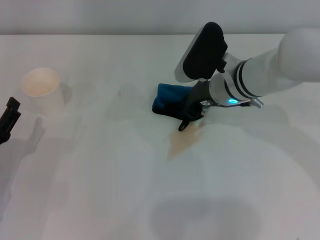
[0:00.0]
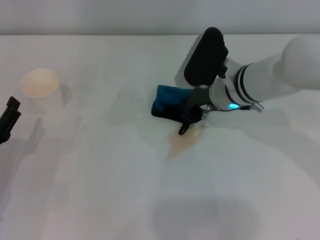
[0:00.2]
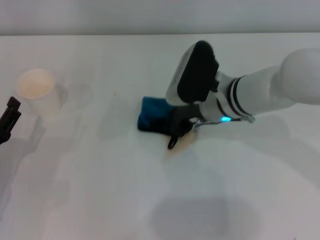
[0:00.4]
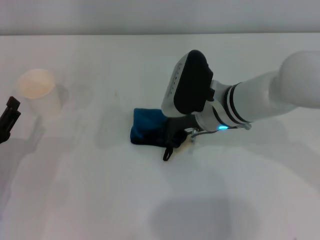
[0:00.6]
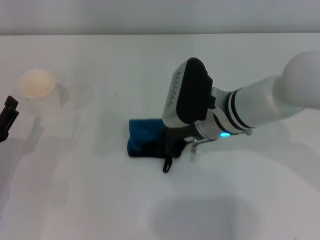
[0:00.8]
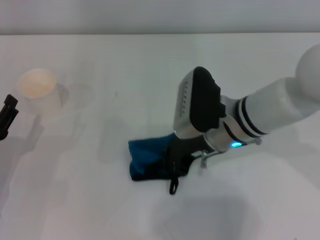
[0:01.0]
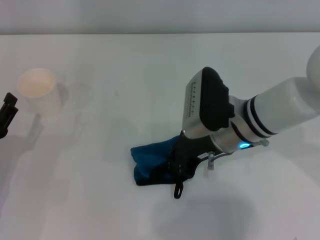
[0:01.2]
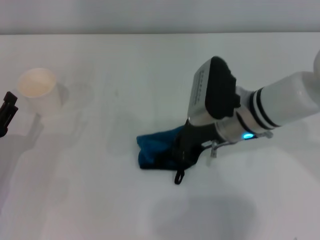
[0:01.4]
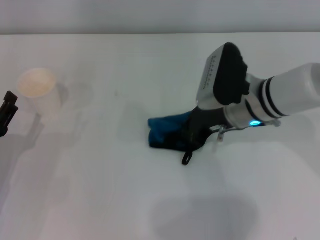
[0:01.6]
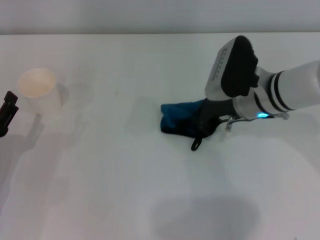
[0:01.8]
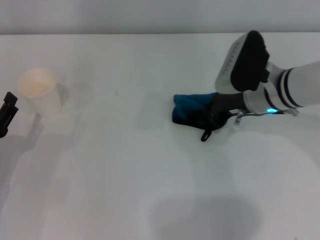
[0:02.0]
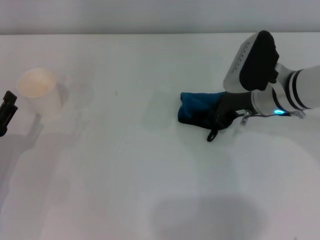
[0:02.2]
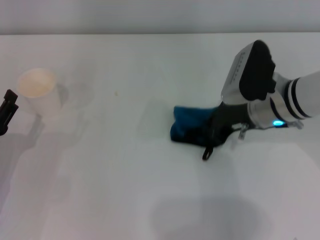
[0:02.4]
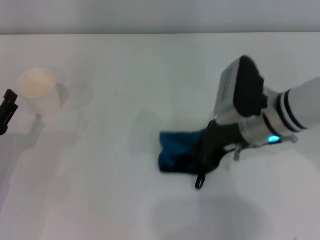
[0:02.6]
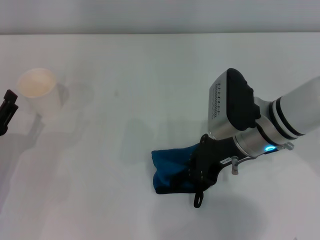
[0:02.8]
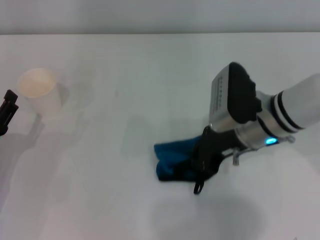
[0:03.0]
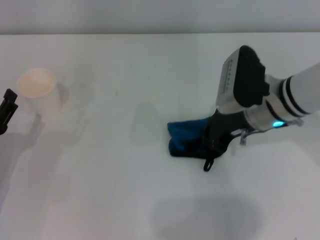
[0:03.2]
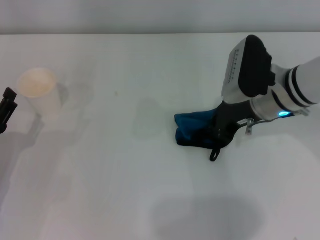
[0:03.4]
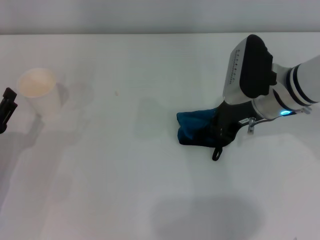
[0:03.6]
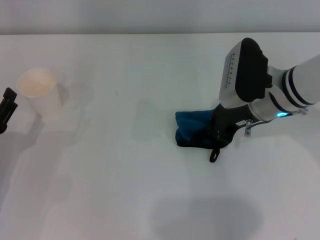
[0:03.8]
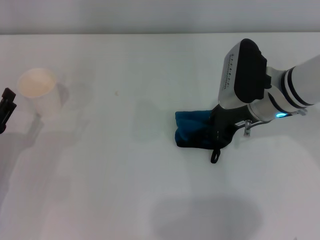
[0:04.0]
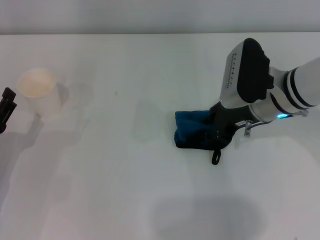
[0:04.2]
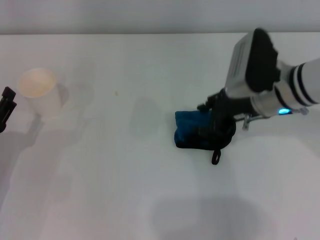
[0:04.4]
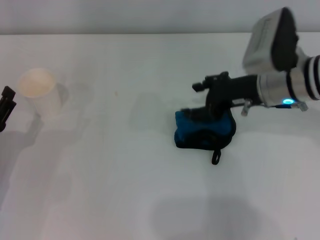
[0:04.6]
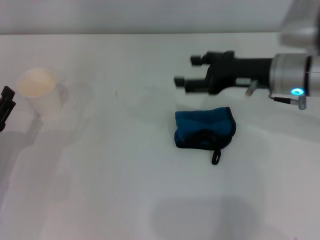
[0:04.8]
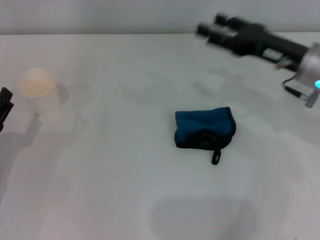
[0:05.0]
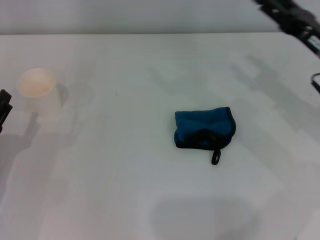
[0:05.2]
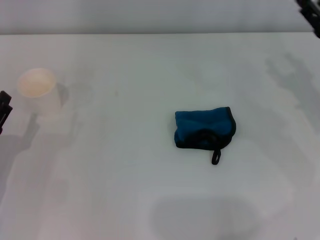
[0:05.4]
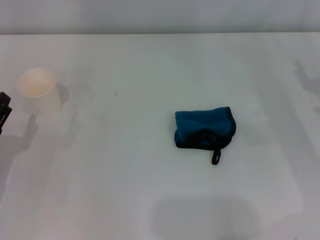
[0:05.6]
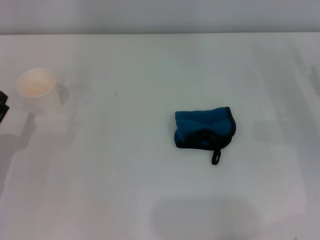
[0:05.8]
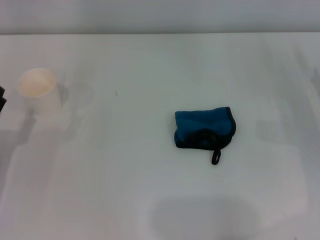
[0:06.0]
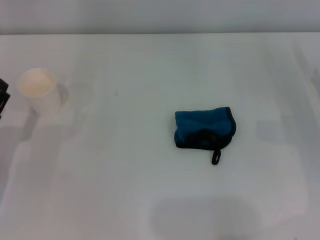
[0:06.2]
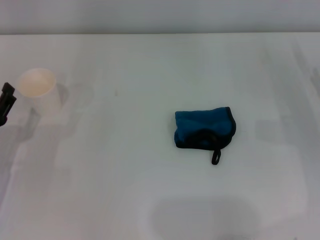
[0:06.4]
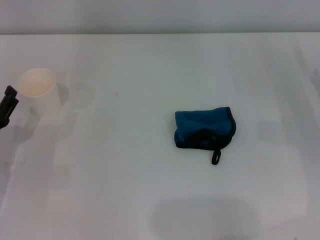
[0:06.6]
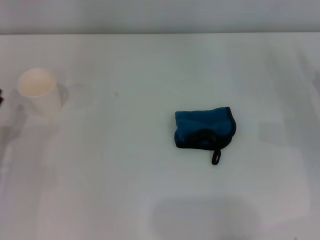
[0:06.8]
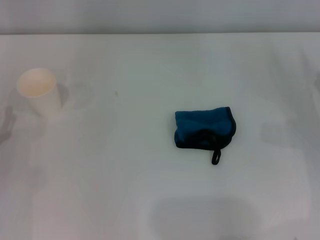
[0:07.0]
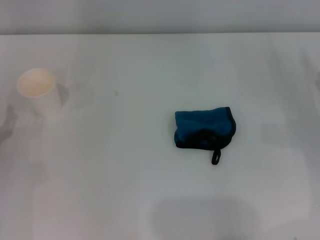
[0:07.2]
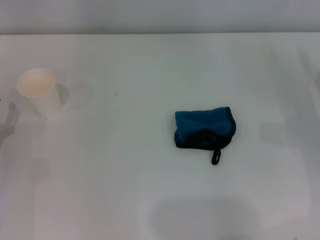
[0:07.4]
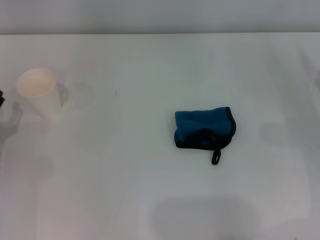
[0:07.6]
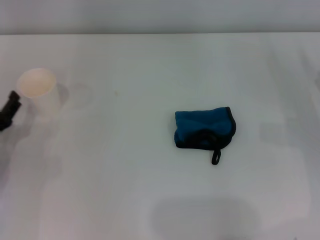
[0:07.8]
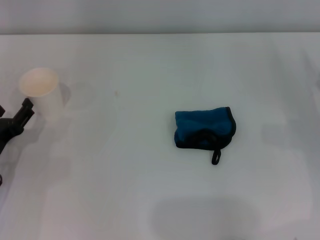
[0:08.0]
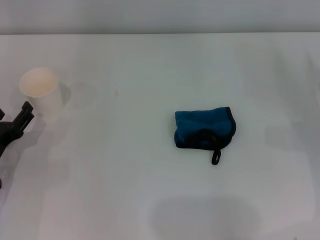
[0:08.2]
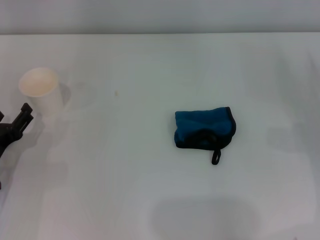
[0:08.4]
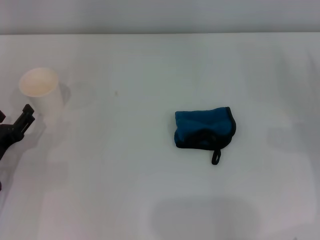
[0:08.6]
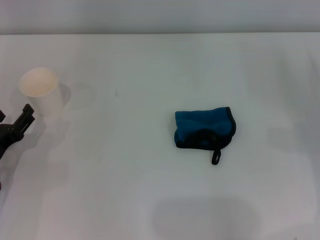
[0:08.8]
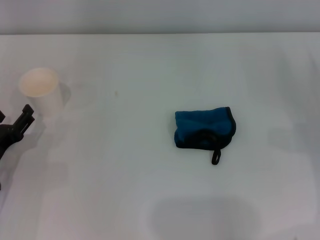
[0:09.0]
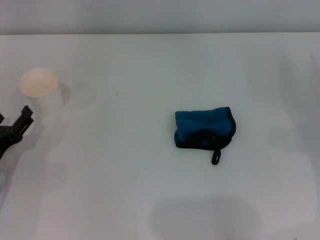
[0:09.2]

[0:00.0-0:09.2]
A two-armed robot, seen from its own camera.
Step, 0:02.0 to 0:04.0: Place the rag on the table with the right gripper.
0:01.6 to 0:03.0: There are only small adjustments of the grippers.
0:03.0 to 0:04.6: The right gripper moves roughly 5 cm, and opens its fingers.
0:04.6 to 0:06.2: The right gripper travels to the right and downward by some 20 cm.
0:07.6 to 0:09.2: The grippers move only a little.

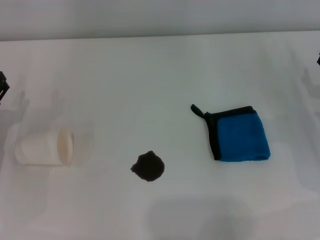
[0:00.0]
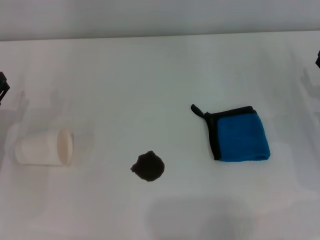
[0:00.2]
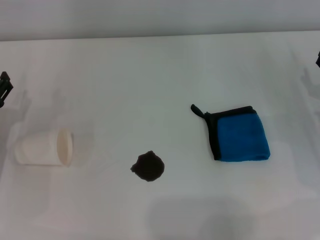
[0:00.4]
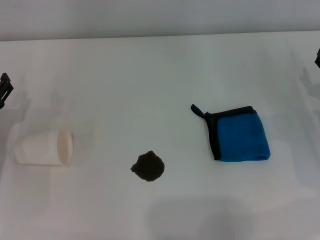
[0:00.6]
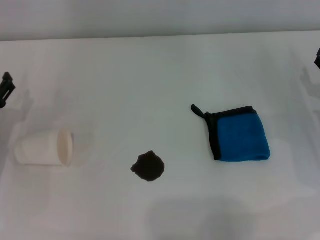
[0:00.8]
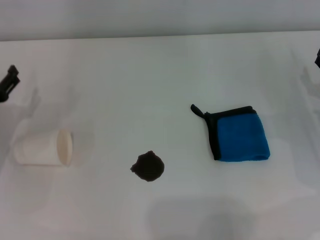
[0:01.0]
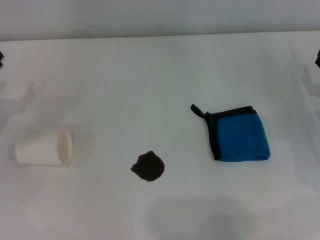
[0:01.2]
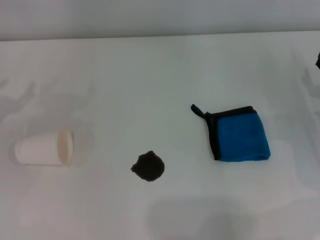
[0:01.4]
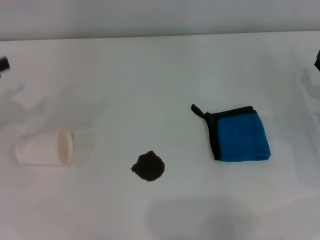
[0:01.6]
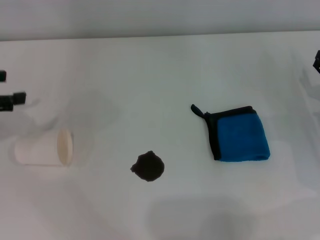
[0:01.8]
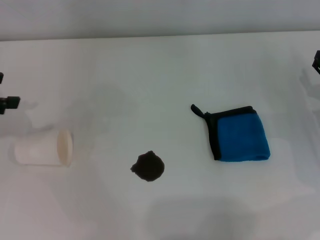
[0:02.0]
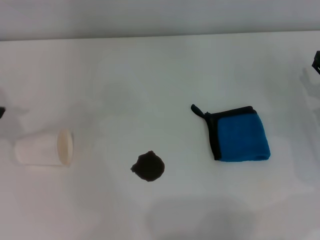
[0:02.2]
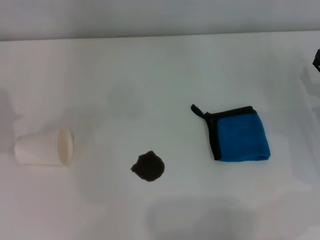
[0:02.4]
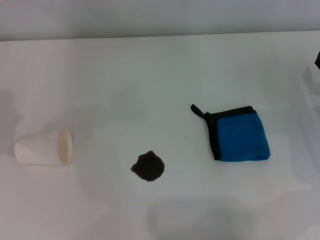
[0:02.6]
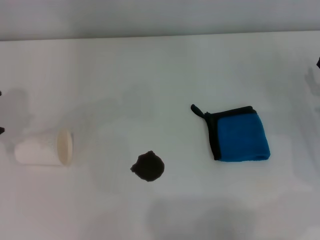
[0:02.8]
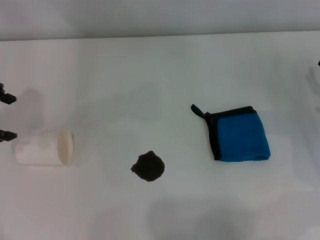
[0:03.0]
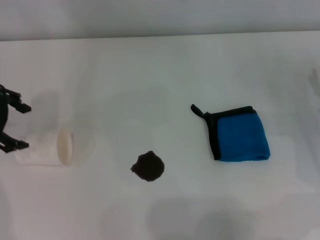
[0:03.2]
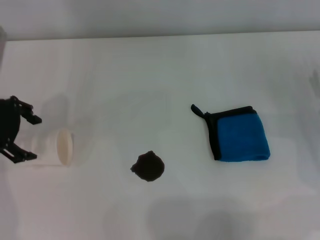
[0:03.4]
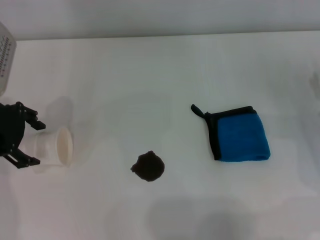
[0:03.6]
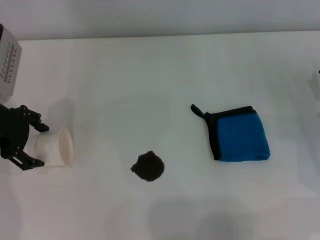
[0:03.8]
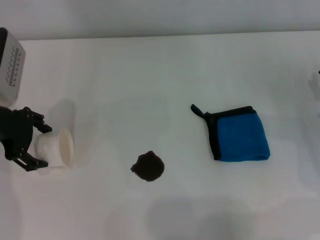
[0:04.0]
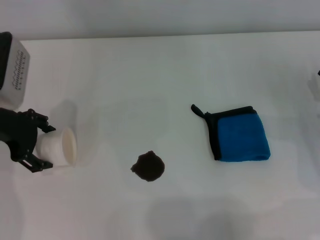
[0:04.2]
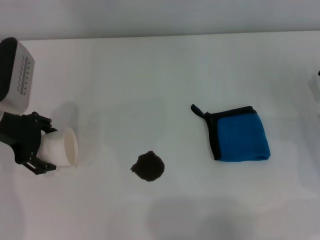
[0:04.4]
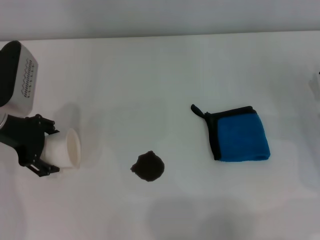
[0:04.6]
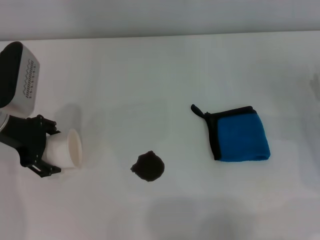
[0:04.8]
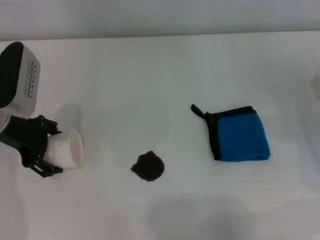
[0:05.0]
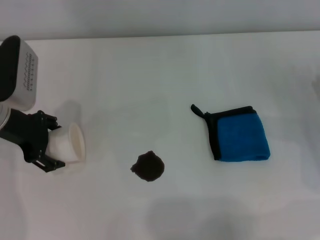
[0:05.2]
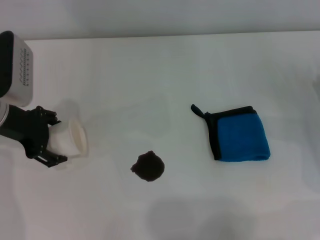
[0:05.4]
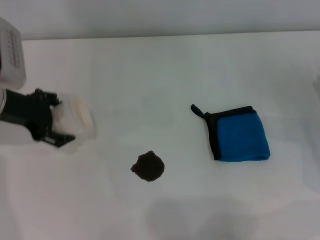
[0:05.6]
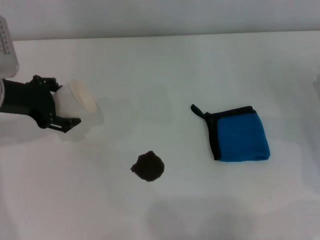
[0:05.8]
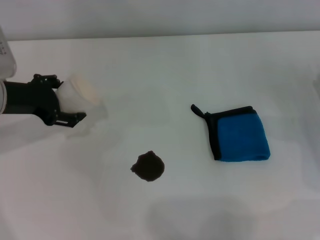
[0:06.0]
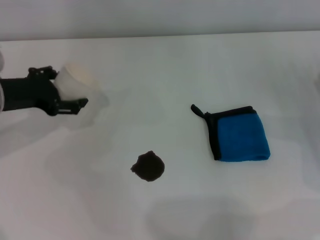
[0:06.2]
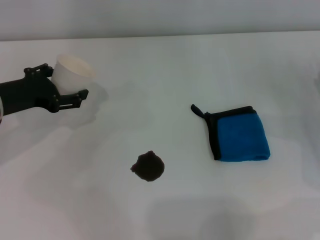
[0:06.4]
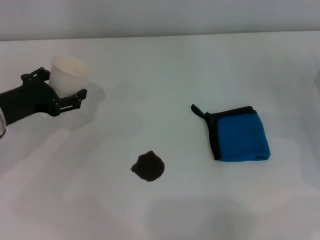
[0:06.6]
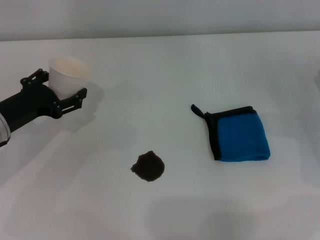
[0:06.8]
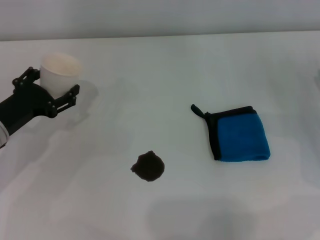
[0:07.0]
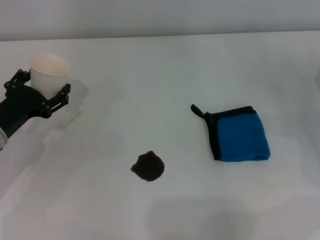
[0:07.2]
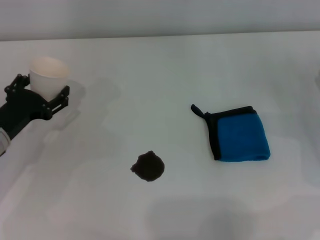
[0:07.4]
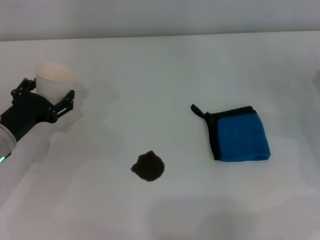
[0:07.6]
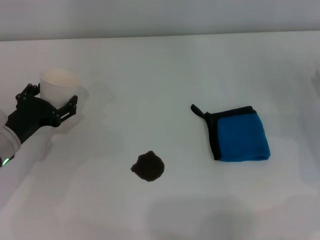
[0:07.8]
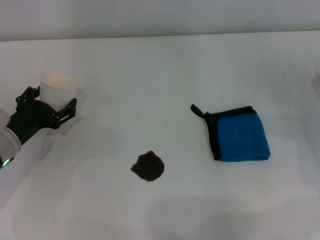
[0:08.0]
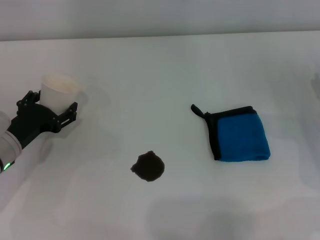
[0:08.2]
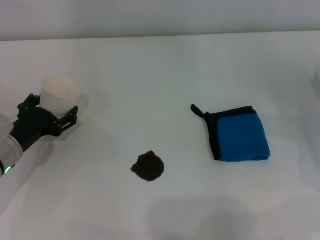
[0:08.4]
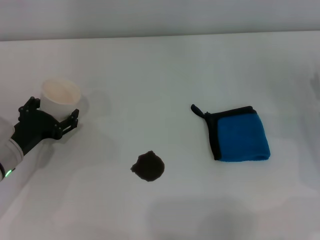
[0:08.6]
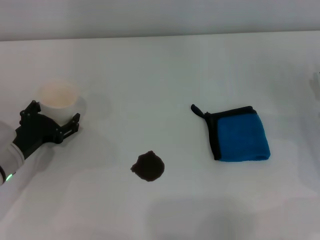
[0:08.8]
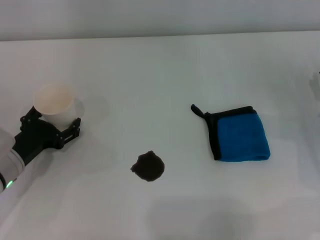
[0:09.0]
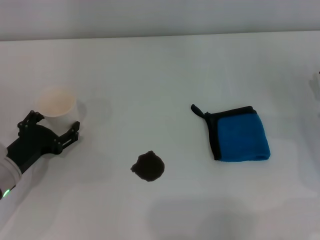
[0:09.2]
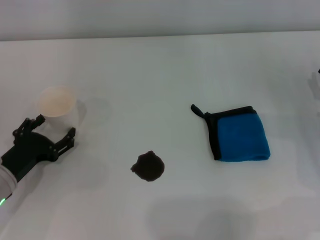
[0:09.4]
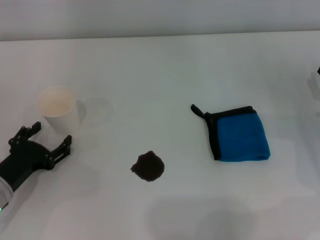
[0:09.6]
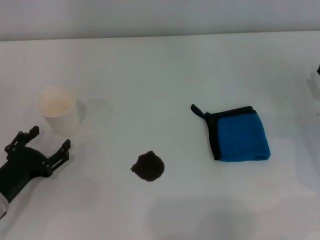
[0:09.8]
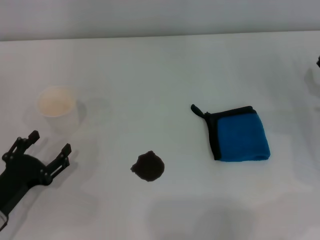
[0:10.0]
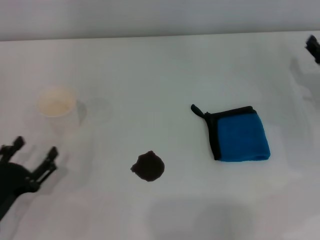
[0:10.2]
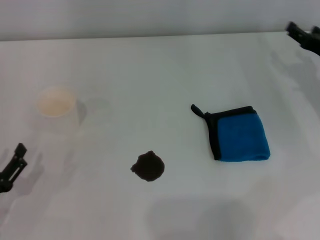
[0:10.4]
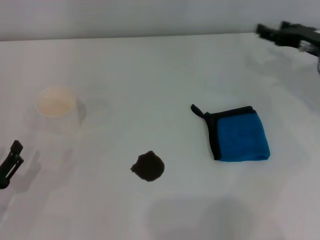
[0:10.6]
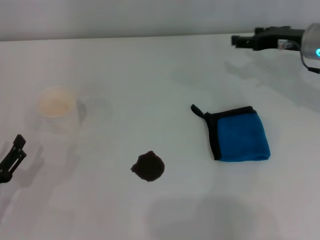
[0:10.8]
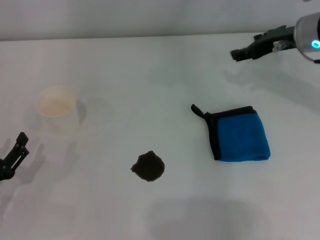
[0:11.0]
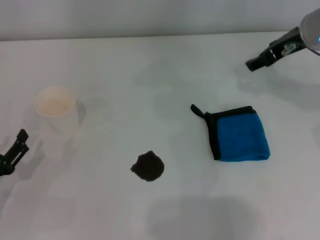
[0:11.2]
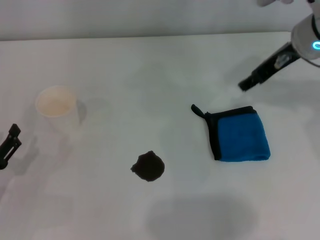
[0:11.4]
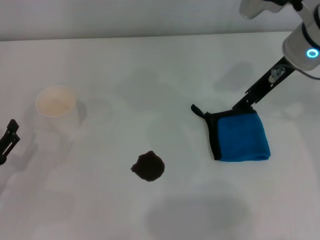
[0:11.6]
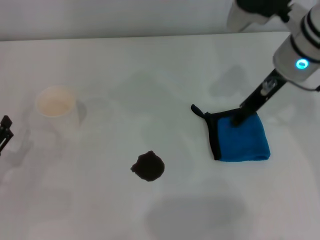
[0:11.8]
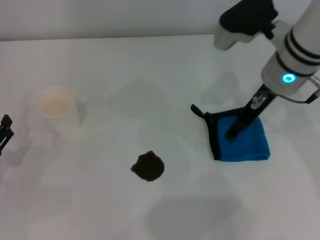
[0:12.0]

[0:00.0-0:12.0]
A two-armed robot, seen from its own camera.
Step, 0:00.0 to 0:04.2: Grasp the paper cup with the left gripper.
Step, 0:04.4 to 0:09.0: Stand the paper cup upright with the left gripper.
0:01.6 to 0:03.0: The left gripper travels upward and to the right by roughly 10 cm.
0:03.0 to 0:04.4: The left gripper heads downward and to the right, covering approximately 10 cm.
0:06.0 to 0:07.6: The left gripper is displaced downward and backward by roughly 10 cm.
0:07.6 to 0:09.0: The grippers move only a little.
0:09.0 to 0:10.4: The right gripper heads forward and upward, covering some 10 cm; the left gripper heads backward, covering roughly 10 cm.
0:10.4 to 0:12.0: The right gripper heads to the left and upward, covering about 20 cm; the left gripper moves forward, some 5 cm.

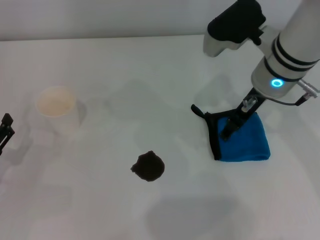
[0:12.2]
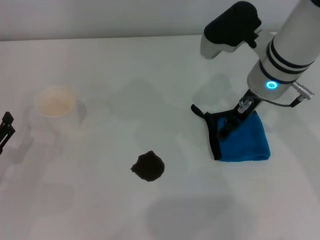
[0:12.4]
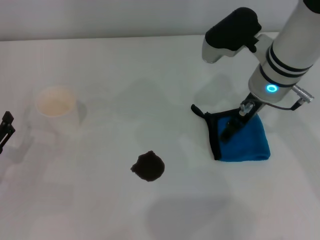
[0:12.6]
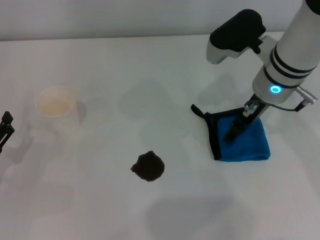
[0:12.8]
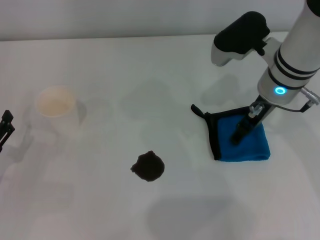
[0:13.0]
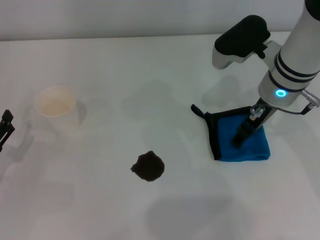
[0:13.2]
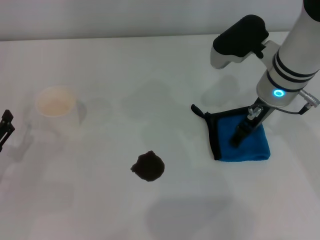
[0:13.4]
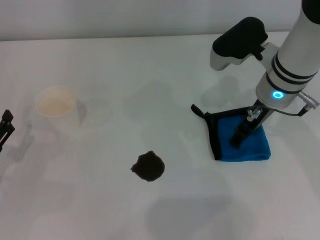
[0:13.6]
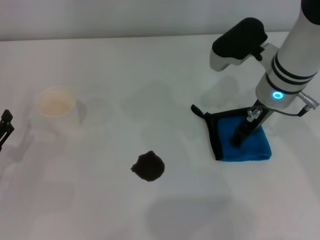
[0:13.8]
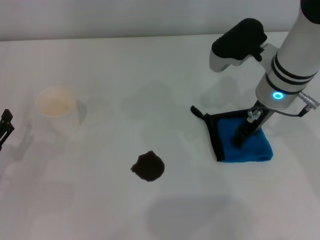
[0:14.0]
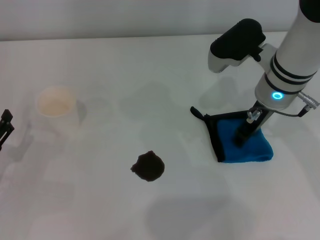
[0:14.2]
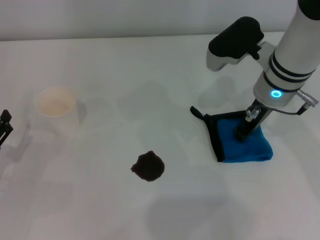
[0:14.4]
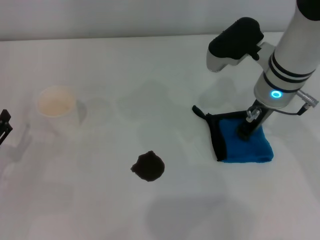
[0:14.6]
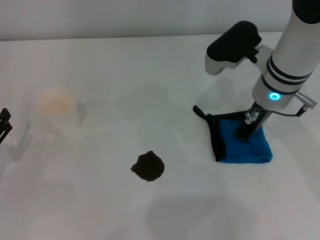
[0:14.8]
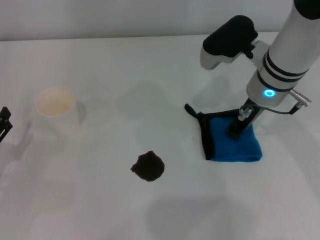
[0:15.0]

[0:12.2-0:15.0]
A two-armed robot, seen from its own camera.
Step, 0:12.2 to 0:14.4: Grasp the rag with the right gripper.
0:12.2 to 0:13.6: The grippers make only small movements.
0:13.6 to 0:15.0: The right gripper closes its fingers.
